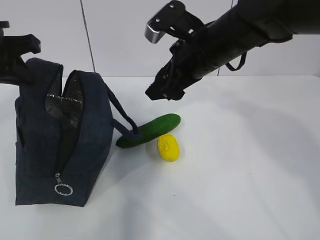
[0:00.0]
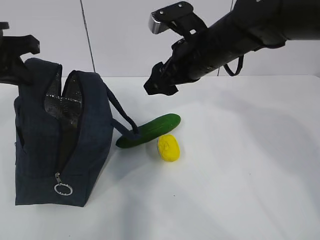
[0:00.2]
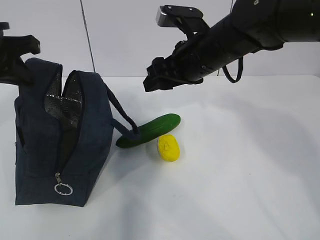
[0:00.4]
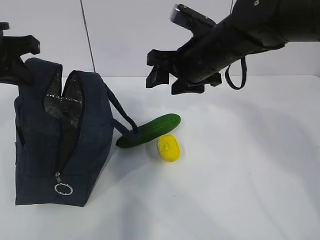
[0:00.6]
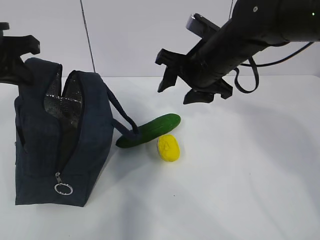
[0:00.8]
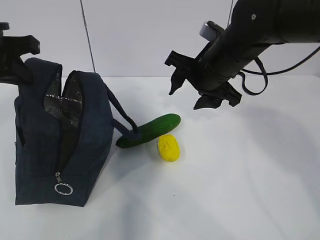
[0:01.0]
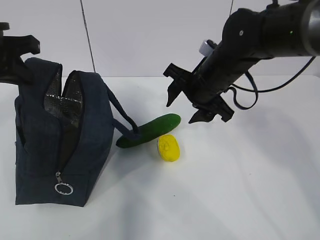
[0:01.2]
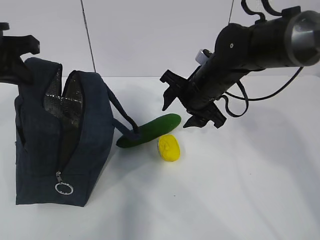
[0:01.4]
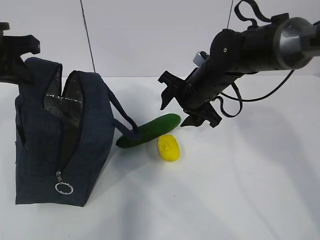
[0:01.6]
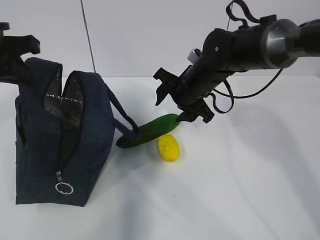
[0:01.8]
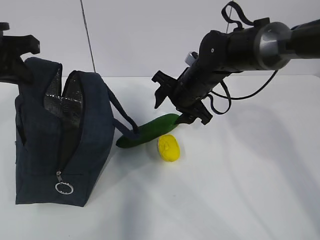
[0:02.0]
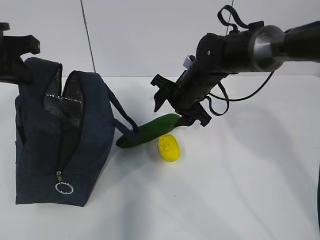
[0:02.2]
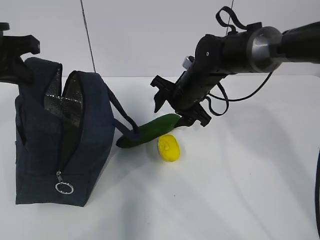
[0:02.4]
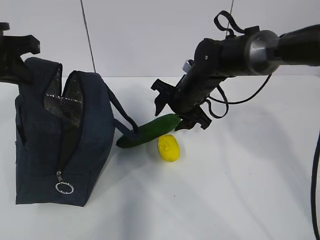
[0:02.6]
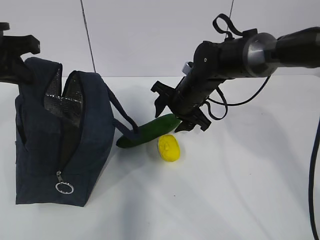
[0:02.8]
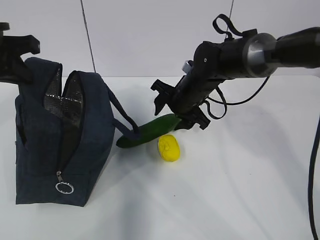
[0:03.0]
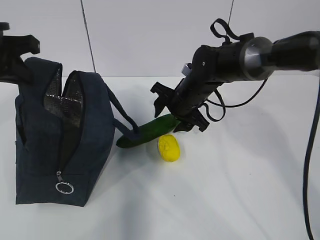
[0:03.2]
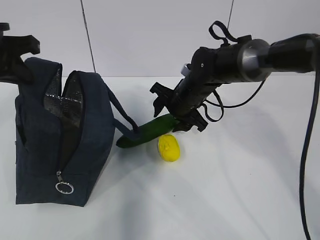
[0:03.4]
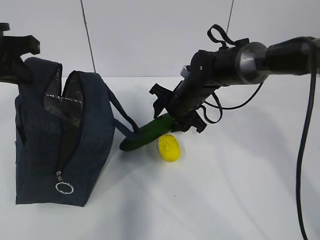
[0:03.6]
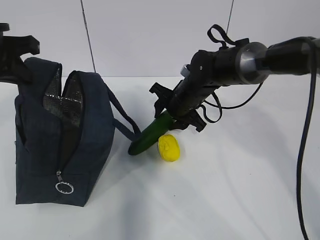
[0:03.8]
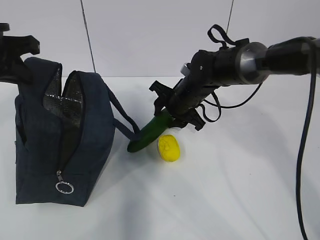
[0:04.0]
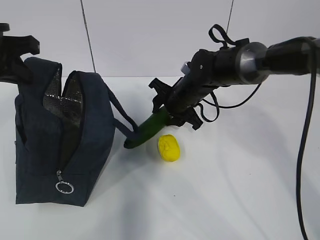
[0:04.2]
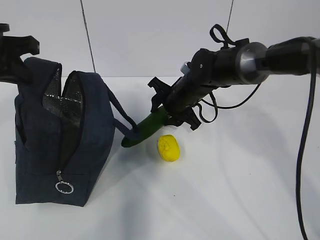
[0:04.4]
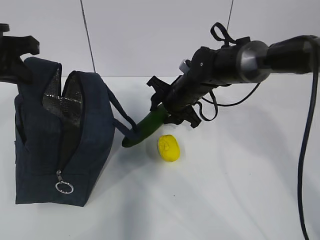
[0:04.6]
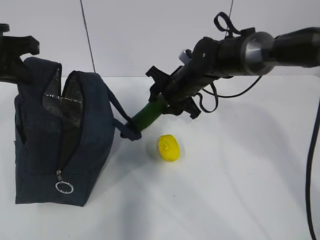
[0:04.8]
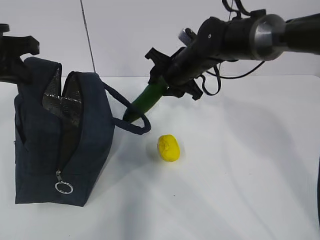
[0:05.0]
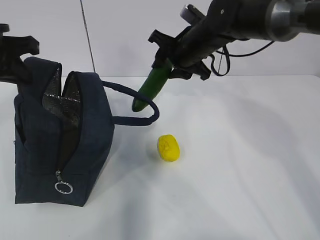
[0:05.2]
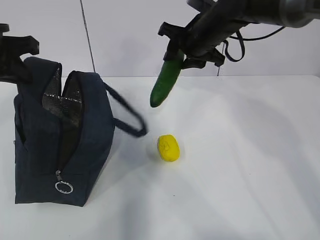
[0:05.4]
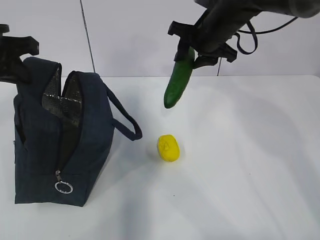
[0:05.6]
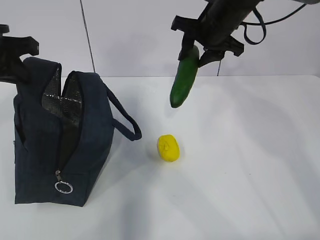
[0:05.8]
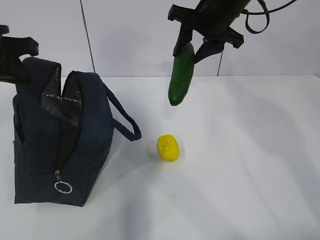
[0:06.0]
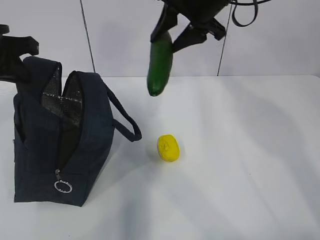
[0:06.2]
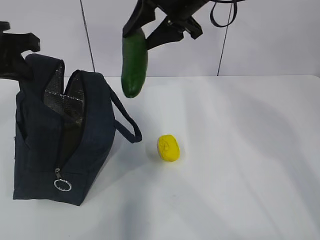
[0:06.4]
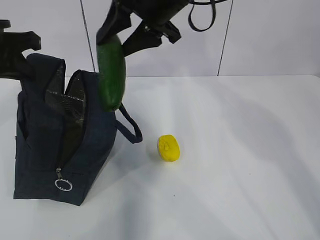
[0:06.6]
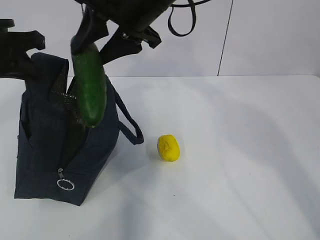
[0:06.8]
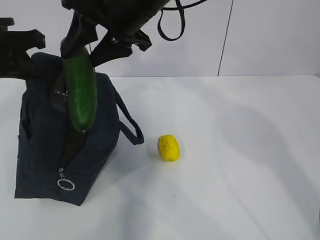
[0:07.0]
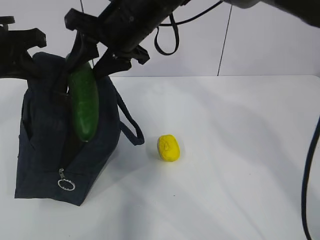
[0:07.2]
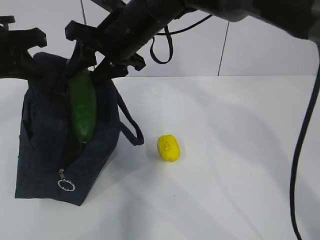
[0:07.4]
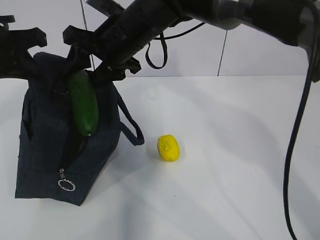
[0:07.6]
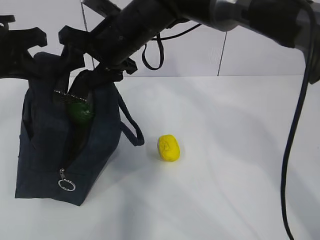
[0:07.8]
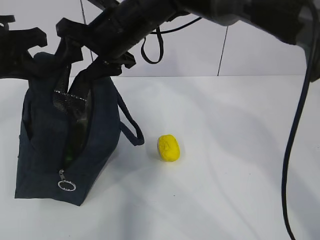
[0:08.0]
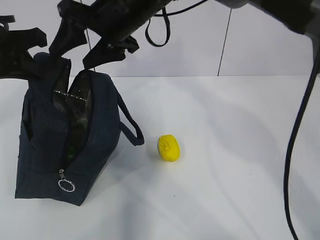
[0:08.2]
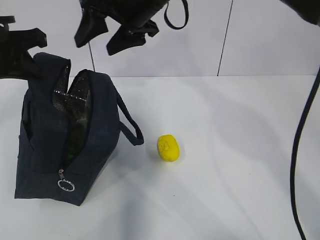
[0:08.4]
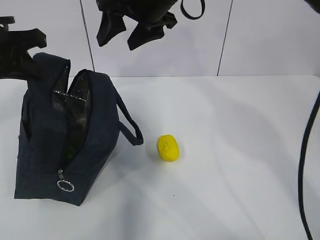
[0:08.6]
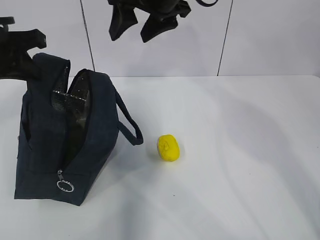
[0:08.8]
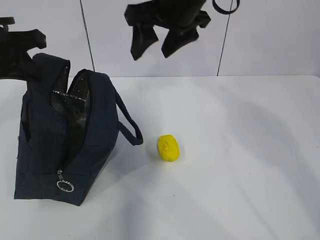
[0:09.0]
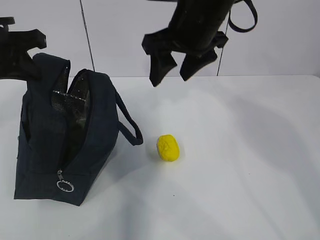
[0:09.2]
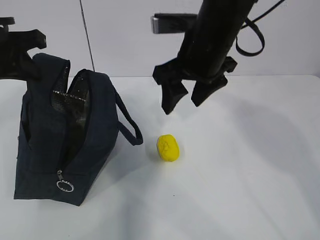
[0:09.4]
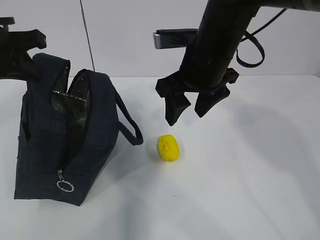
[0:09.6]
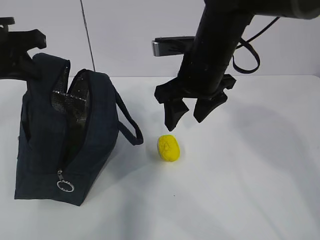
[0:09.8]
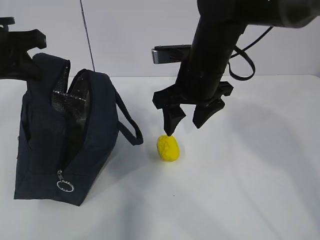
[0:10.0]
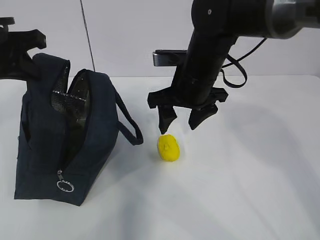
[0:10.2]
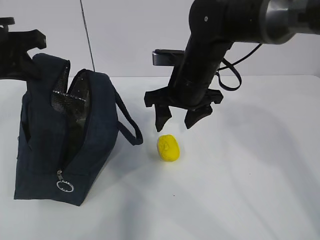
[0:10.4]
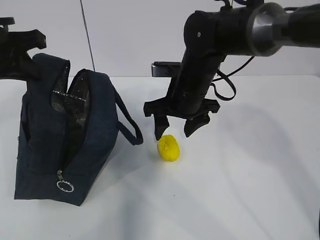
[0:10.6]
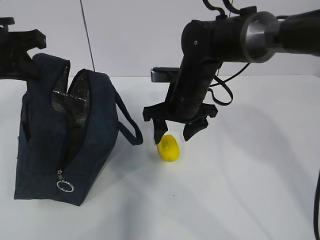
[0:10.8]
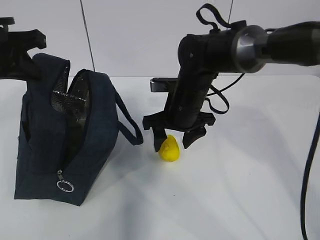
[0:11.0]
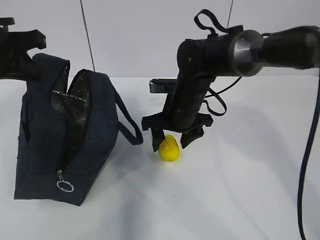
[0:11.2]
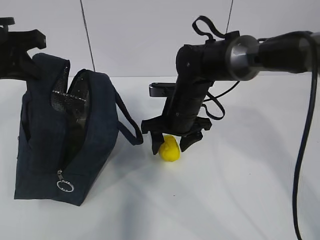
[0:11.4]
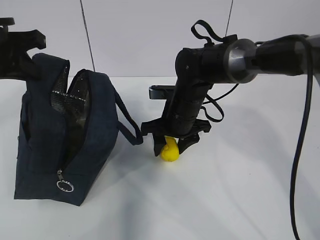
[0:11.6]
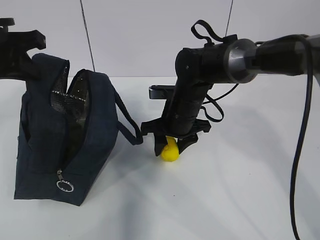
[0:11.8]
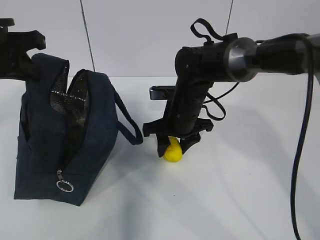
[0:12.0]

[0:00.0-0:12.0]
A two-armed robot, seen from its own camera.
Step, 0:00.0 to 0:02.6: Place it into the bag with your right hand.
Step, 0:02.8 to 0:05.6: Grab the lemon with your right hand.
Step, 0:07.8 to 0:08.8: Grab the lunch bag with your right hand.
Step, 0:09.0 to 0:11.8: Move the lunch bag to the right.
0:00.0 to 0:01.6: The right gripper heads downward, covering approximately 10 cm.
0:01.6 to 0:03.0: The grippers move only a little.
0:03.0 to 0:04.4: There are only small adjustments of the grippers.
0:04.4 to 0:06.0: The right gripper moves upward, some 20 cm.
0:06.0 to 0:07.6: The right gripper moves to the left, some 15 cm.
0:07.6 to 0:09.0: The right gripper goes some 10 cm to the right and upward.
0:09.0 to 0:10.4: The right gripper travels downward by about 15 cm.
0:10.4 to 0:12.0: The right gripper is displaced downward by about 10 cm.

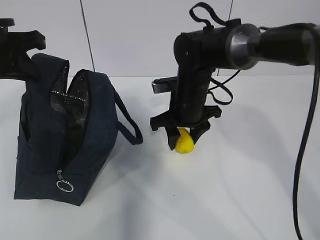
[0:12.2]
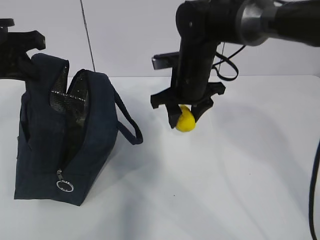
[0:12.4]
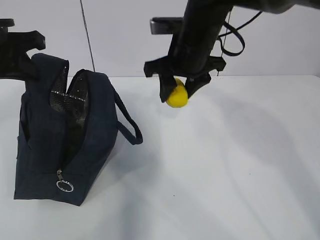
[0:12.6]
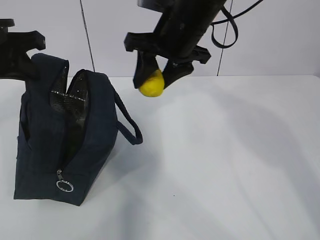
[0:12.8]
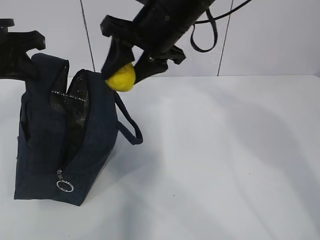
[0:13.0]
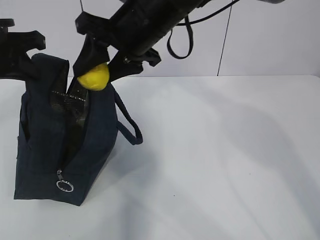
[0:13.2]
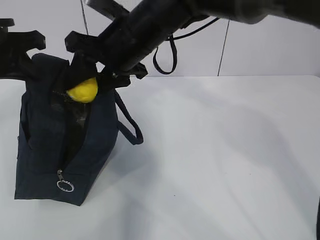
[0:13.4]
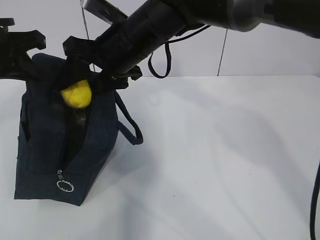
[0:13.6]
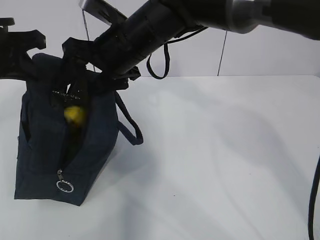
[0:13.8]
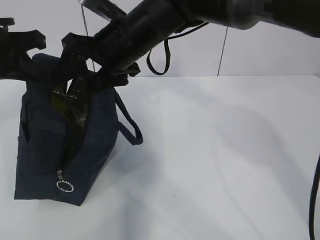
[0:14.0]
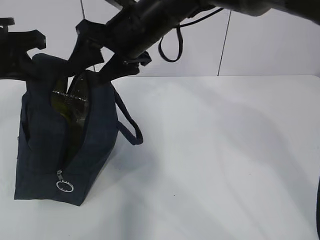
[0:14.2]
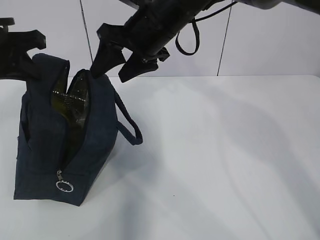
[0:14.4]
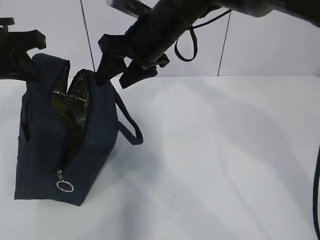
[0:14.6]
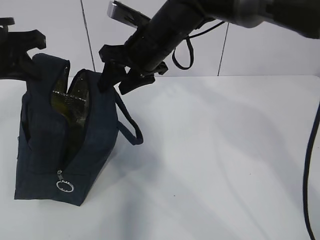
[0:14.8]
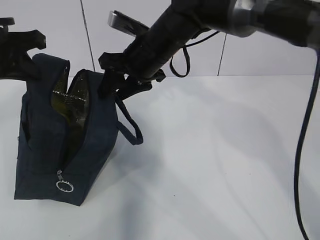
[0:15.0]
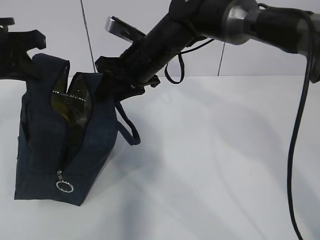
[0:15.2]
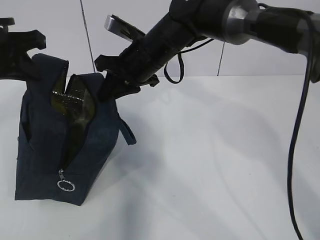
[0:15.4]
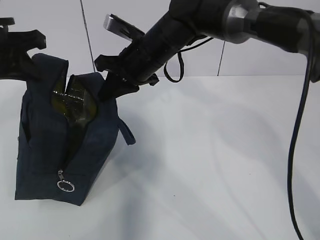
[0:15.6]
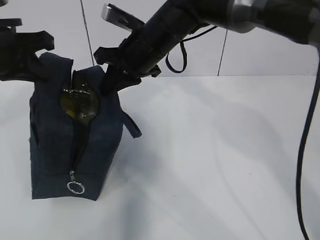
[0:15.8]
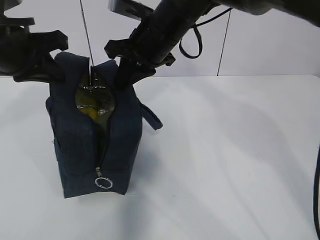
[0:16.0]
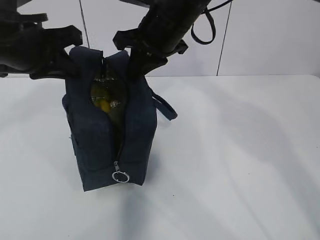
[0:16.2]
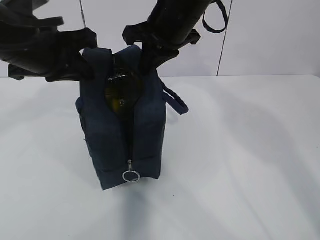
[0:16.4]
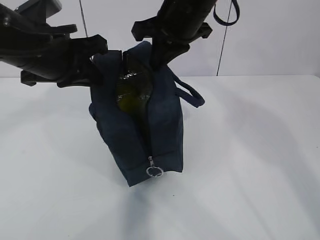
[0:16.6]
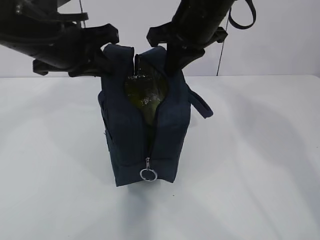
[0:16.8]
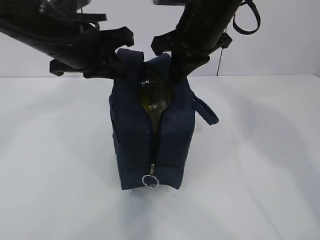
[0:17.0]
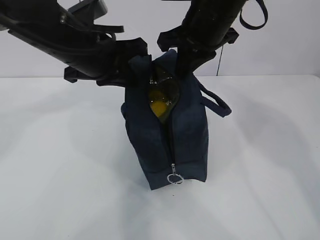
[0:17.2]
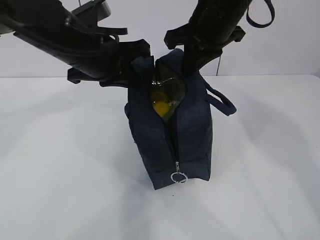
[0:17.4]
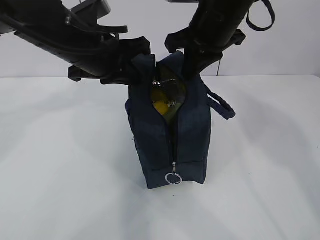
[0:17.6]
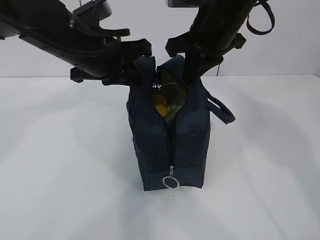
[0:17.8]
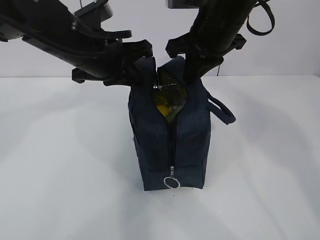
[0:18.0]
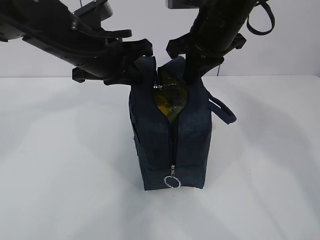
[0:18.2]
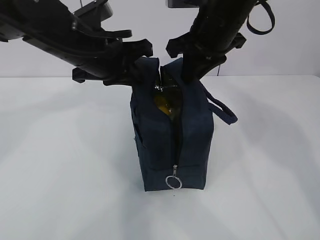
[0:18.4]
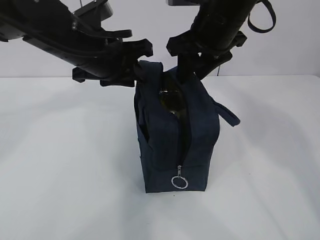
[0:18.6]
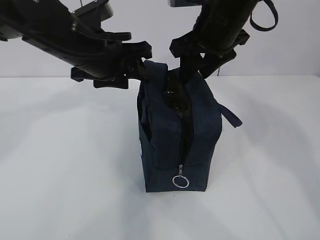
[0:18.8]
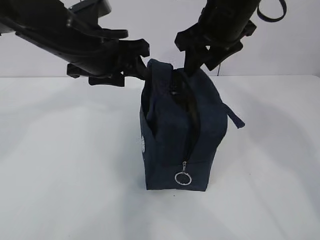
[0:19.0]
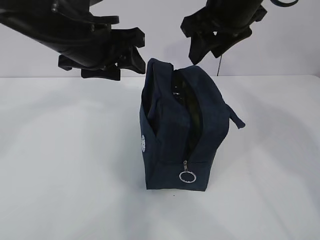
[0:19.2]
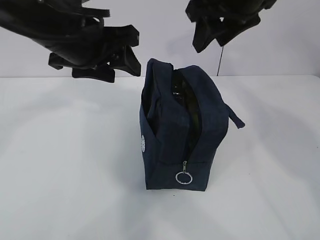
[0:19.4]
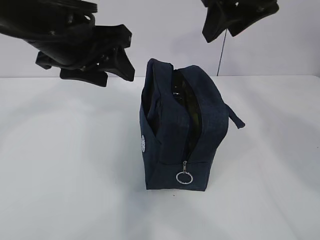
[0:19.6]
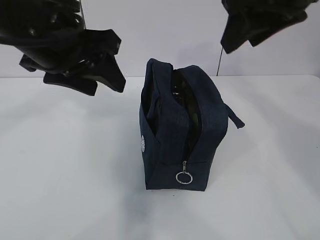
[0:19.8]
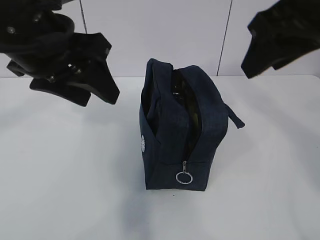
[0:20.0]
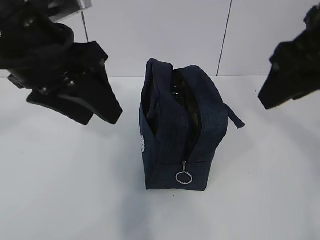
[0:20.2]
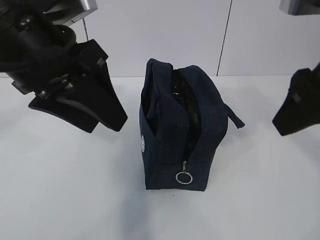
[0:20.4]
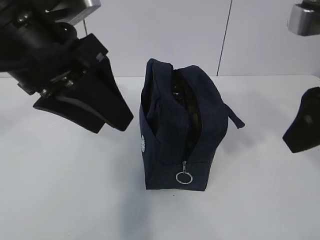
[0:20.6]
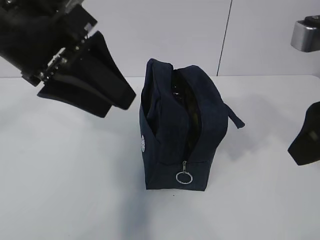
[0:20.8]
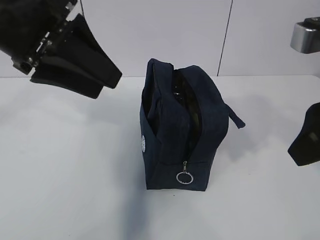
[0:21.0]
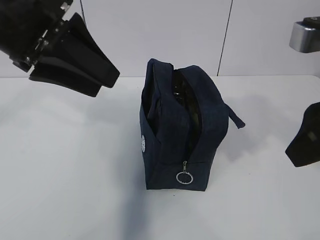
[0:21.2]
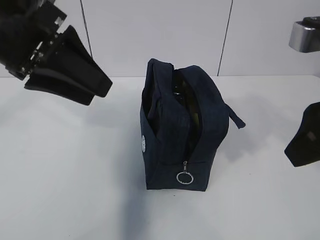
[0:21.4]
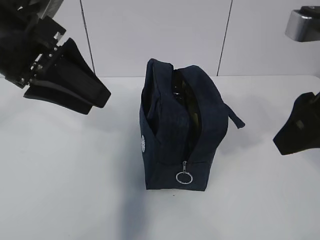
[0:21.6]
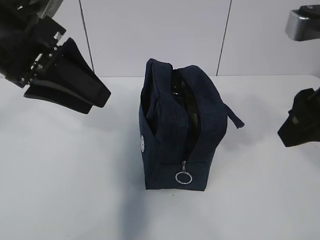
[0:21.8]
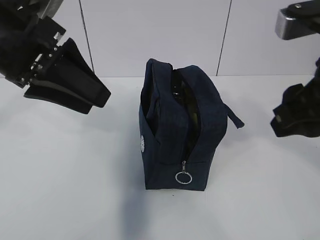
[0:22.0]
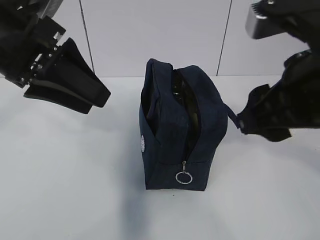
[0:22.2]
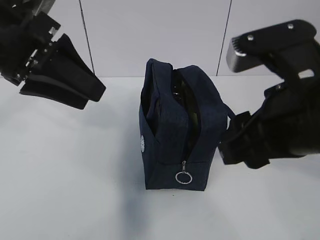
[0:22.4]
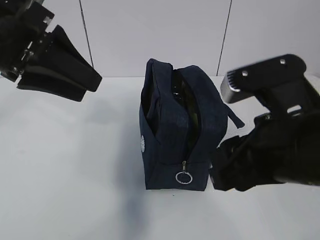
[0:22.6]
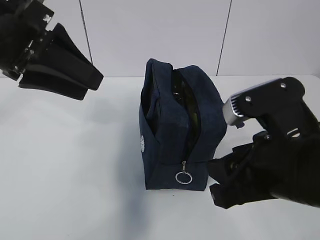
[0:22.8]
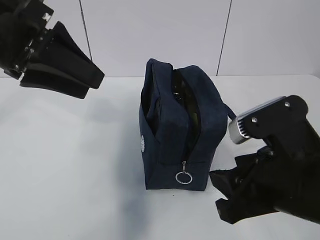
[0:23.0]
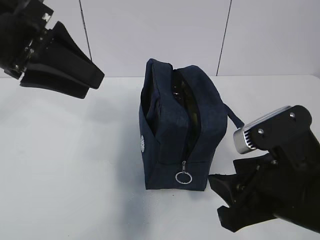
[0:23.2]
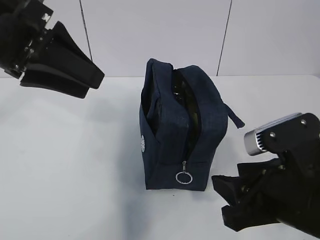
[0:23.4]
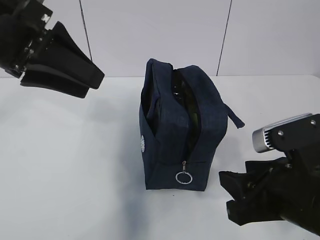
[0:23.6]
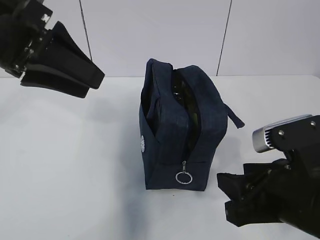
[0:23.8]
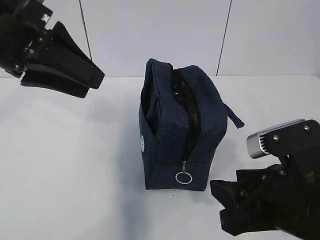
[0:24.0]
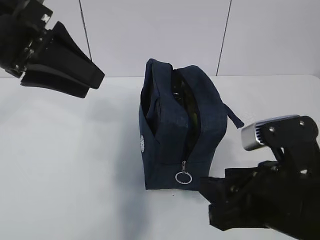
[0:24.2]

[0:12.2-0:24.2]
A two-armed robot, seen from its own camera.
0:12.2 to 0:13.8: The right gripper moves upward and to the left, roughly 15 cm.
0:13.8 to 0:15.2: The right gripper changes place by approximately 5 cm, and closes.
0:15.2 to 0:16.6: The left gripper moves to the right, approximately 10 cm, while the right gripper heads upward and to the right, covering approximately 10 cm, and closes.
0:16.6 to 0:18.2: The left gripper shifts approximately 5 cm to the right.
0:18.2 to 0:19.8: Both grippers move backward and upward, about 10 cm. The right gripper opens its fingers, while the left gripper opens up.
0:19.8 to 0:21.2: The right gripper moves backward and downward, some 10 cm.
0:21.2 to 0:22.6: The right gripper moves downward and to the left, about 10 cm.
0:22.6 to 0:24.2: The right gripper is displaced downward by roughly 5 cm.
